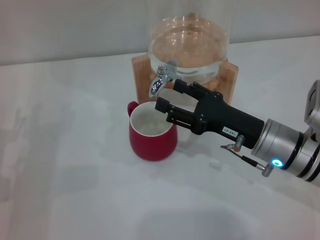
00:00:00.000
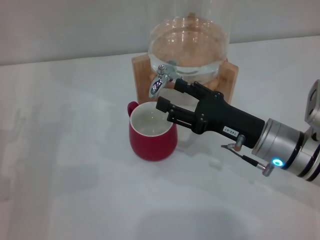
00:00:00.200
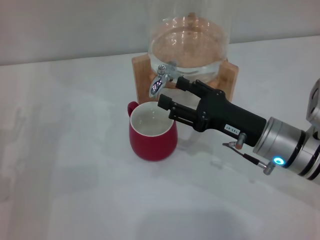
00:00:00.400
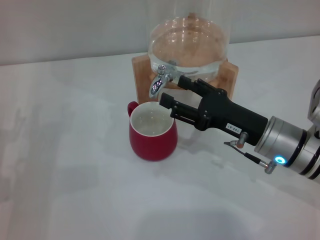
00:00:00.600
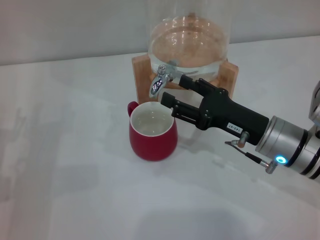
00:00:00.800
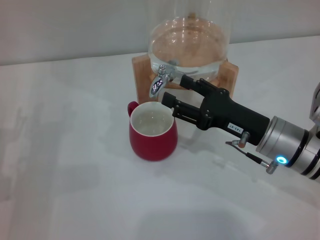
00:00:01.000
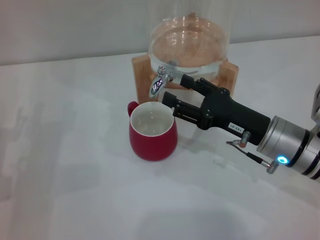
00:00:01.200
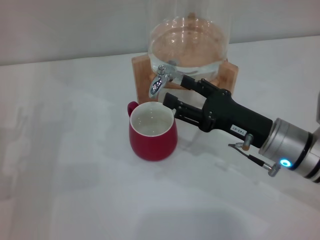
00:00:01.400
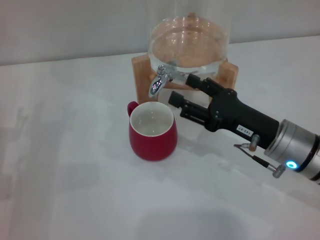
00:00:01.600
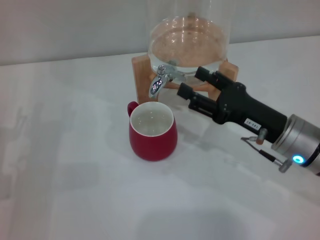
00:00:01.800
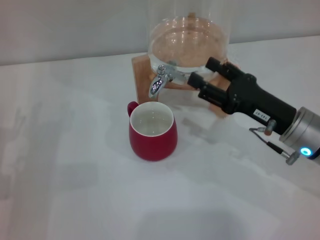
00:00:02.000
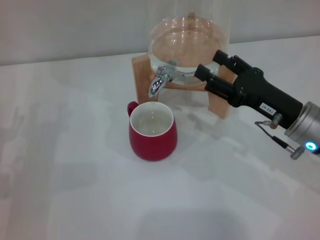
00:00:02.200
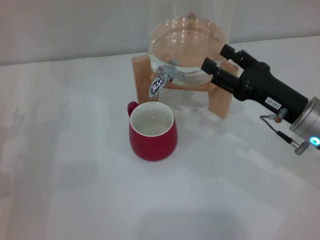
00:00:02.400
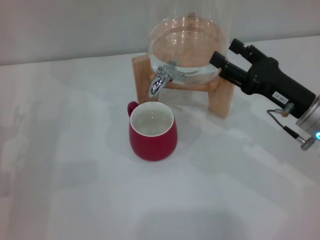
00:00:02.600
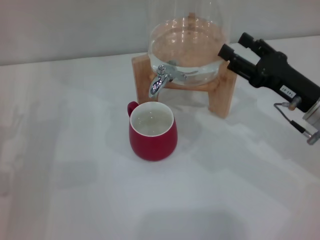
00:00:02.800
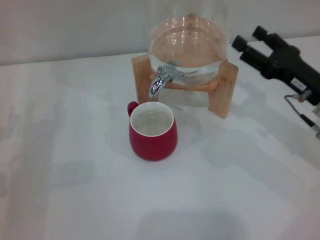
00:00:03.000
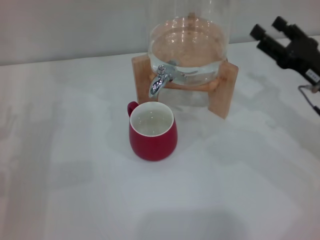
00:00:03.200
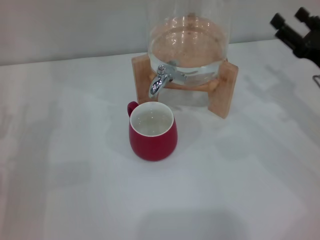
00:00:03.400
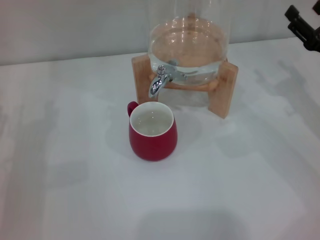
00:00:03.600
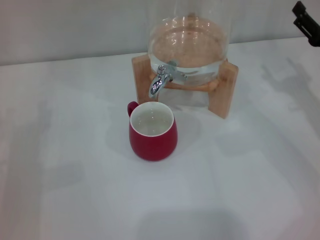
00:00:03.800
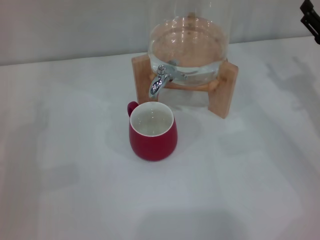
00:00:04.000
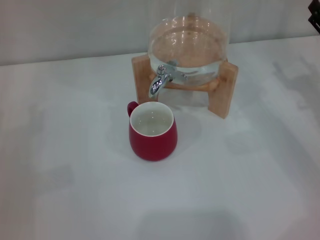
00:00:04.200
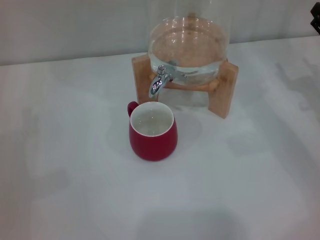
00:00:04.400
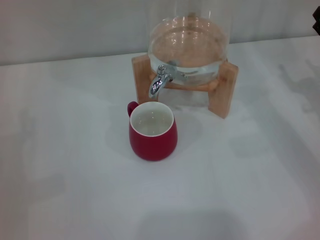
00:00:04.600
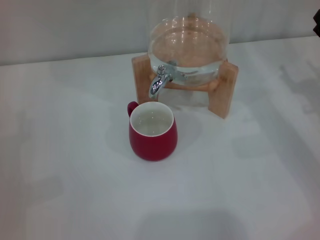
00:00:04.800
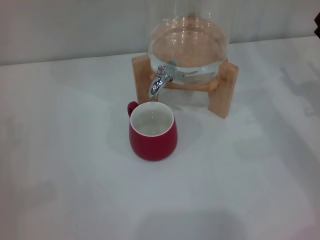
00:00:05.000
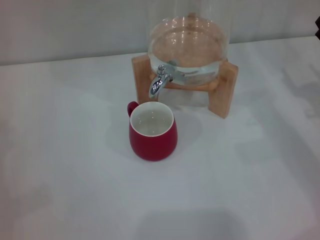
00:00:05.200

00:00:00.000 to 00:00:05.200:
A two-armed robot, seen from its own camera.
Task of the whole recording: the left gripper pick up the red cup and place it horizontally under the faucet, the right gripper turn on the faucet to fill the cup, and then turn off the faucet.
00:00:00.000 to 00:00:01.800: There are only small adjustments of the grippers.
00:00:01.800 to 00:00:03.400: The right gripper heads to the right, covering approximately 10 cm.
